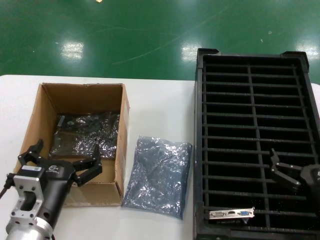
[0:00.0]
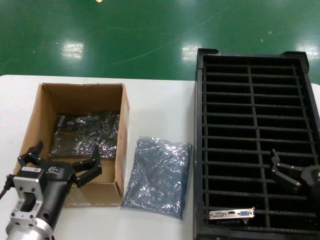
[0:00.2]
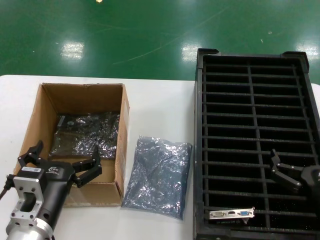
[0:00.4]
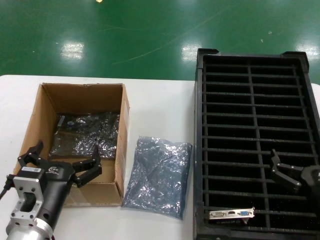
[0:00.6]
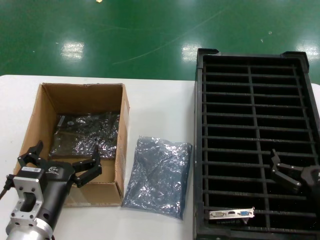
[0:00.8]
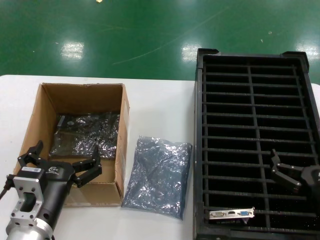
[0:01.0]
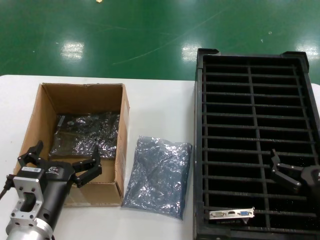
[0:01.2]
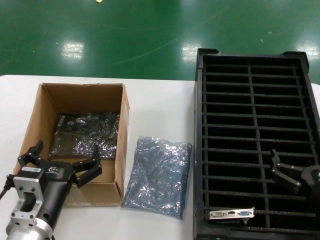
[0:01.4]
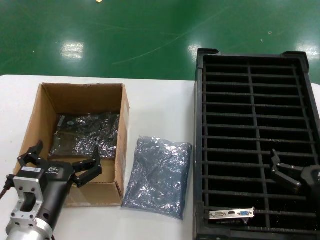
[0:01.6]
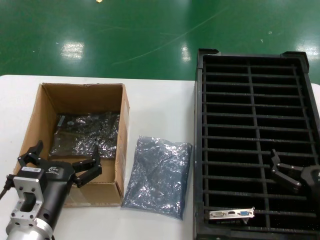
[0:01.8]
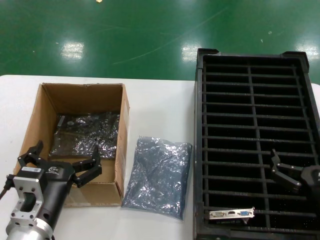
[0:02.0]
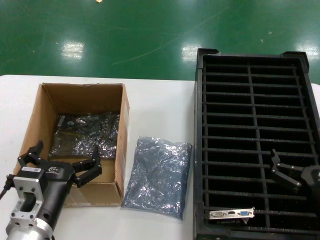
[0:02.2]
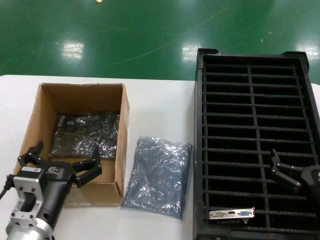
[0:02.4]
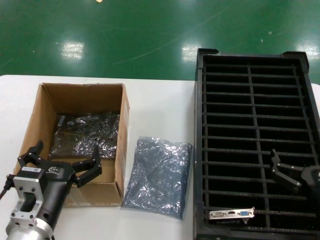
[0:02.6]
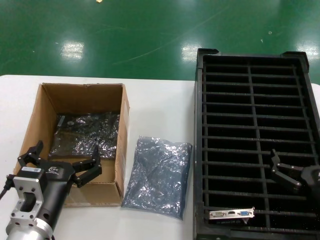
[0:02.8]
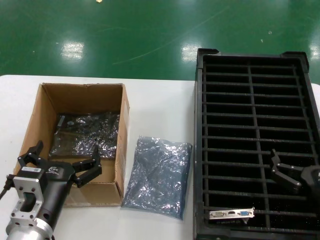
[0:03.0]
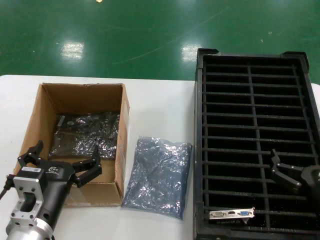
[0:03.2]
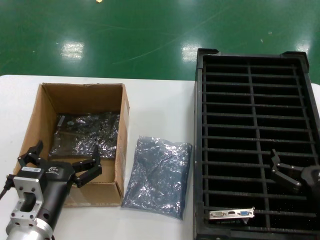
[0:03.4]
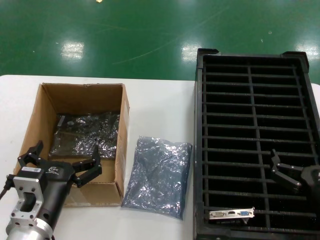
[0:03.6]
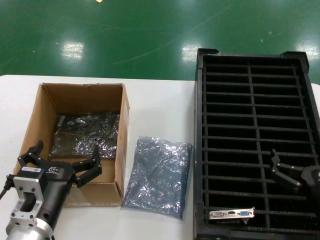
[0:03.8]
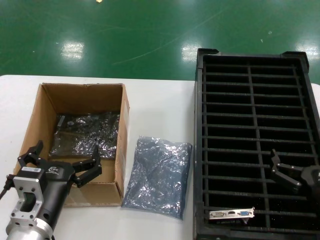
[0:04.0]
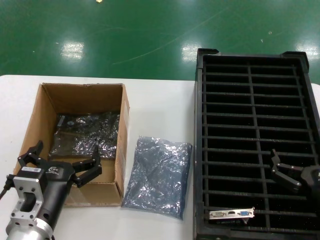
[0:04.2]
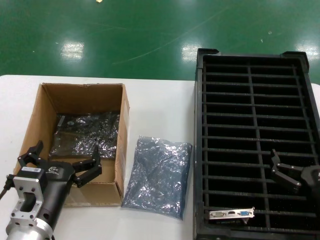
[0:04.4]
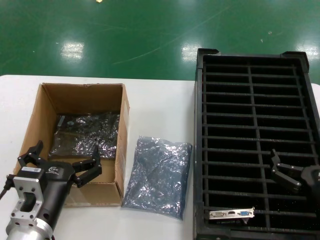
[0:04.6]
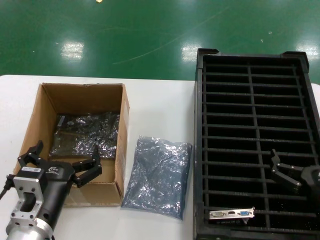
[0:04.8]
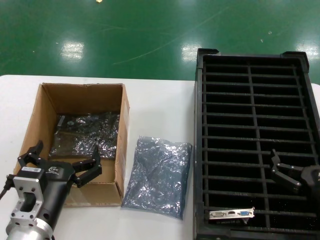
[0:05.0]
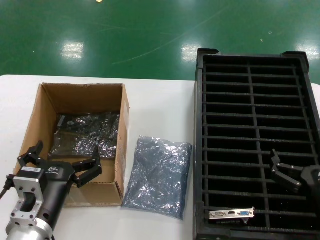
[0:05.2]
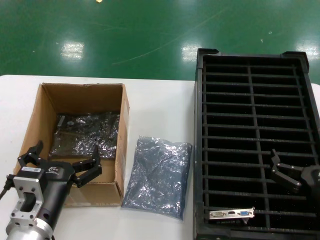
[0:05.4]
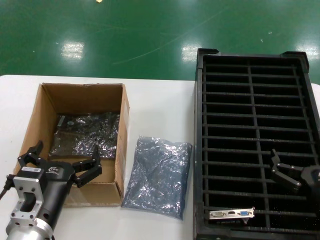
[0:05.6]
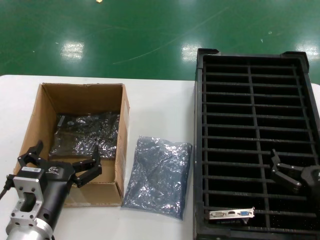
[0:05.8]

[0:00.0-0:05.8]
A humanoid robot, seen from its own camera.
Task of the whole recording: take out graphics card from box remove packaging put into black container.
0.0 to 5.8 s: Both hands stay put.

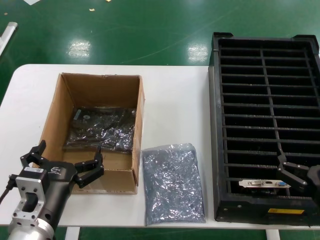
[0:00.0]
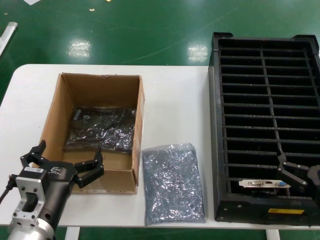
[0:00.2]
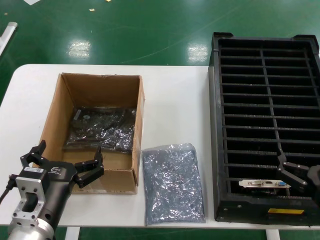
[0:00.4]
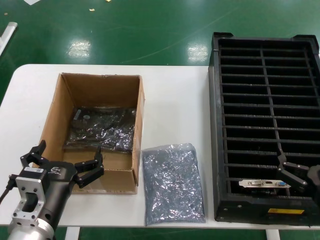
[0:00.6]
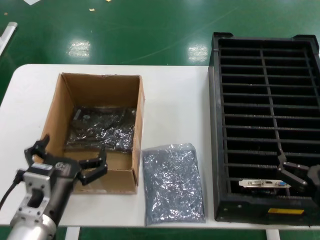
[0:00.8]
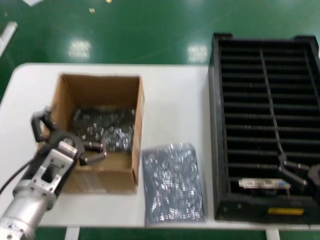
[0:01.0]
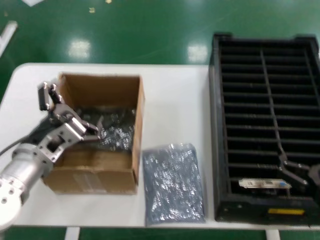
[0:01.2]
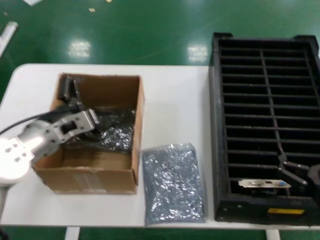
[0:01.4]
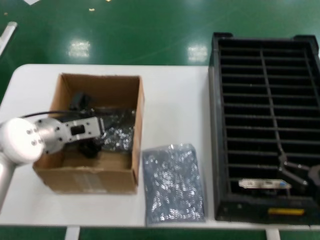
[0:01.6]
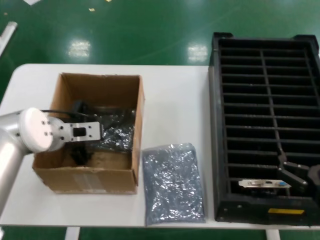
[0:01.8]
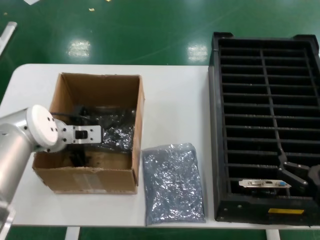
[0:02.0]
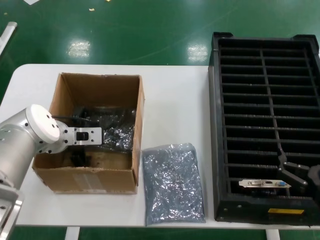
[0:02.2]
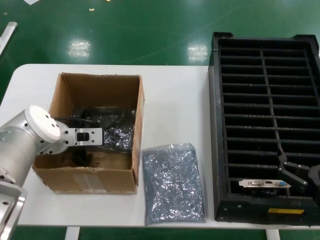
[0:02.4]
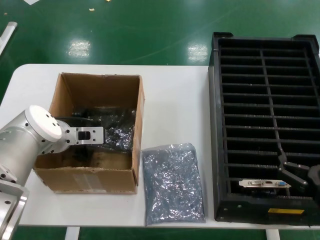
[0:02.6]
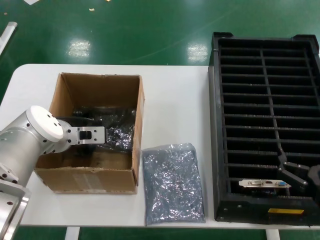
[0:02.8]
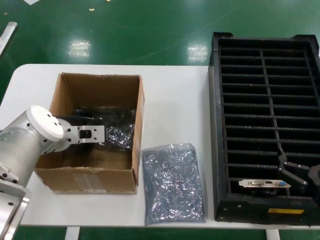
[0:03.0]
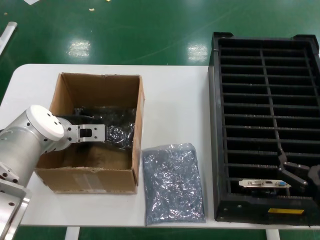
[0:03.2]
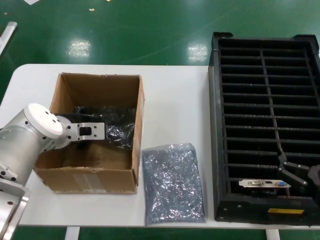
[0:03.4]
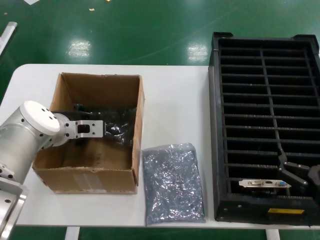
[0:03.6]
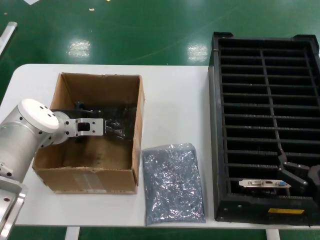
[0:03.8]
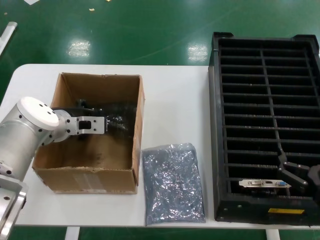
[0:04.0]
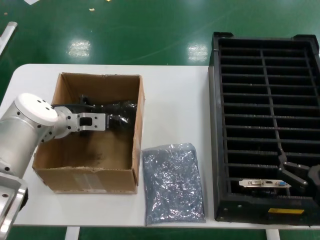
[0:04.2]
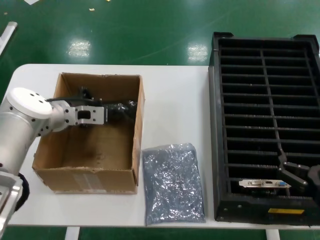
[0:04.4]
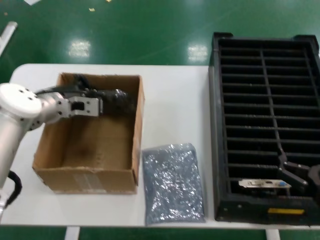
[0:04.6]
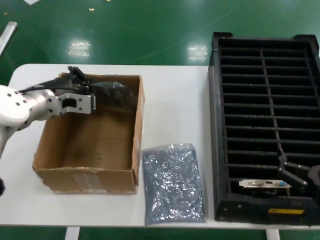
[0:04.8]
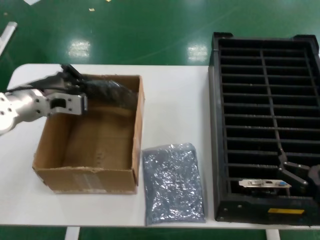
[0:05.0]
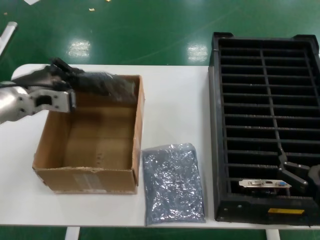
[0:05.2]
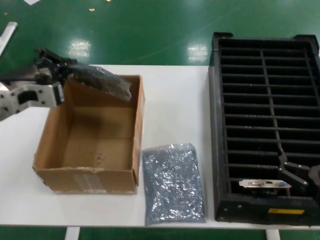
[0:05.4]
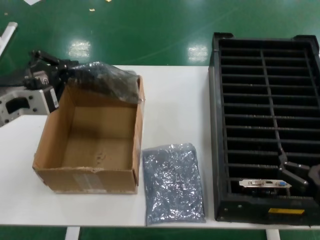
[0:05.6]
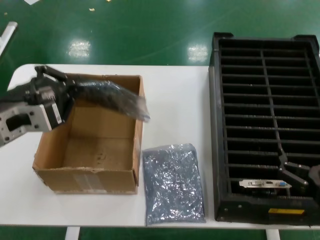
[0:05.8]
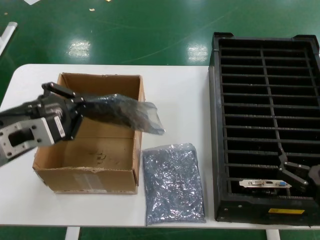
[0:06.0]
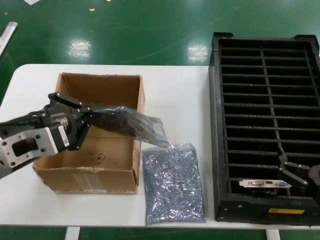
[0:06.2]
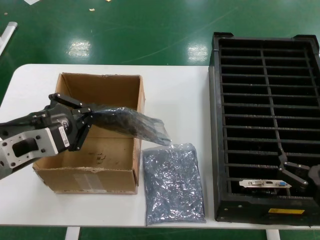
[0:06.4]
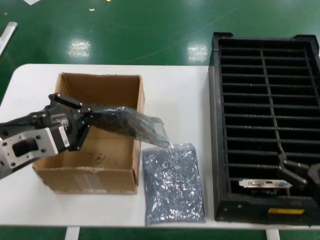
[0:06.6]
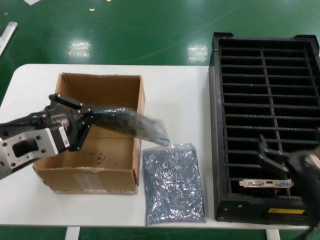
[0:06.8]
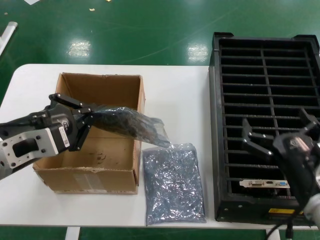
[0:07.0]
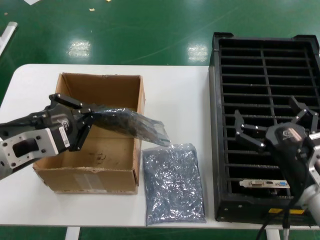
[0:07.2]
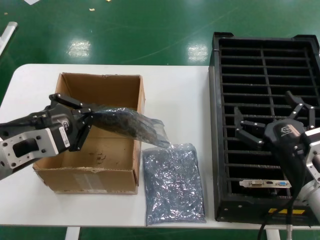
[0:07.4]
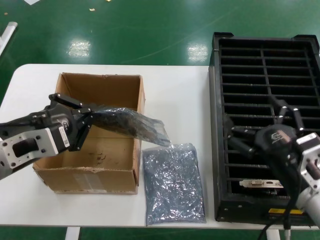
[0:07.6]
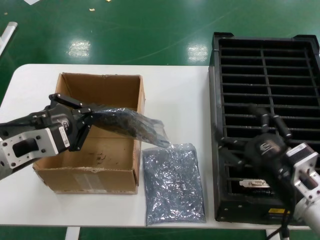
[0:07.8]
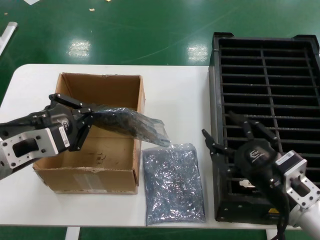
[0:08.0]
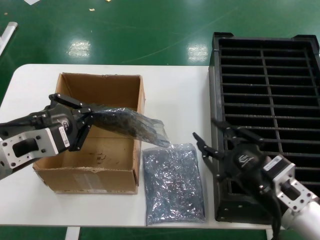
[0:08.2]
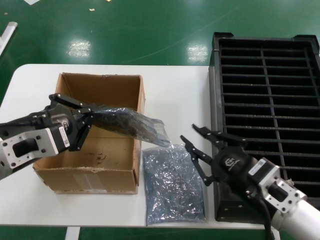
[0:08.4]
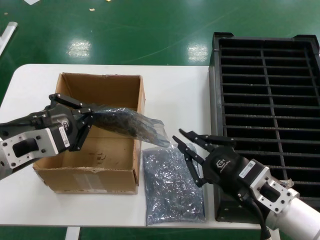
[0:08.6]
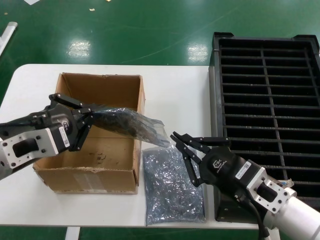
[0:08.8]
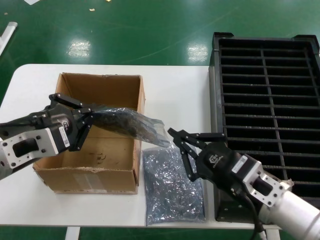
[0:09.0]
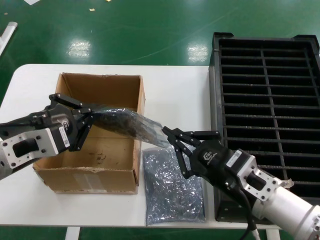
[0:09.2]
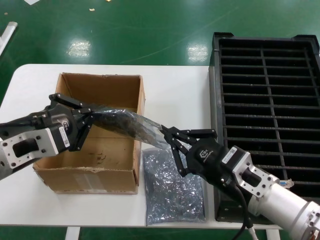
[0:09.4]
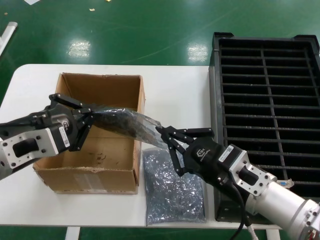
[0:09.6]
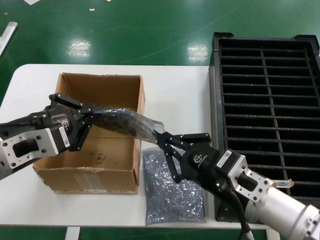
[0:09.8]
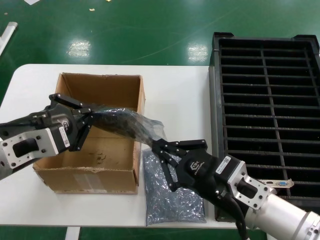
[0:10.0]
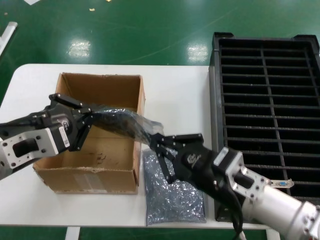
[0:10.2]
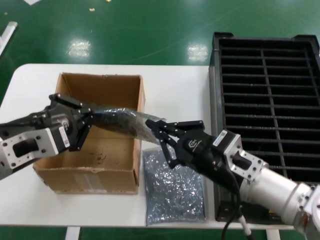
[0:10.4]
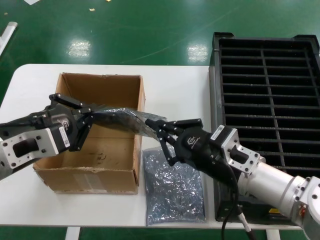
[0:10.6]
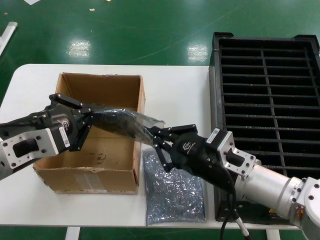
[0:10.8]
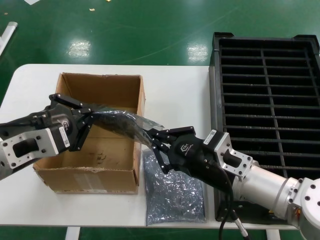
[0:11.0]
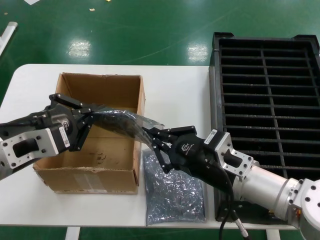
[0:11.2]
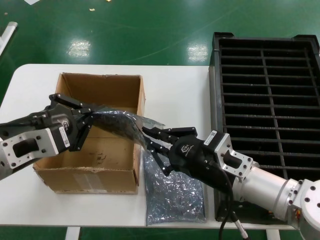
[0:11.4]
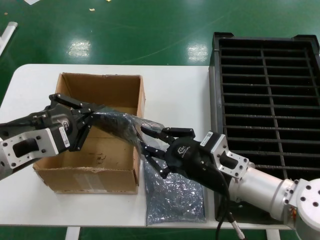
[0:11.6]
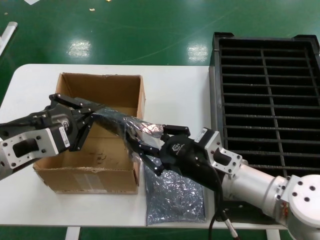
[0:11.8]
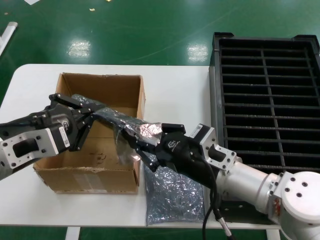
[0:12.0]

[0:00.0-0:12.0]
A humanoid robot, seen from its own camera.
Task of the whole recording: take out graphics card from box remove packaging put into black container.
Step, 0.0 to 3.4 s: Grasp the bag.
Step, 3.8 to 6.4 s: Lift the bag.
0.0 to 1.6 s: The left hand goes some 20 cm forward and upward.
1.6 to 3.0 s: The left hand goes about 5 cm forward.
3.0 to 4.4 s: The hands move only a little.
4.4 to 6.0 s: The left hand travels backward by approximately 20 cm.
6.0 to 7.6 s: The right hand shifts about 5 cm forward.
9.0 to 10.4 s: The hands move only a little.
10.4 to 12.0 s: The hands make only small movements.

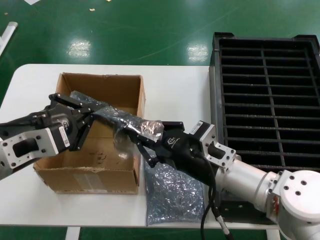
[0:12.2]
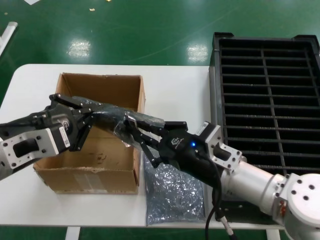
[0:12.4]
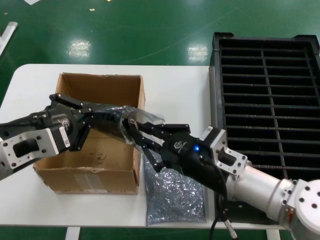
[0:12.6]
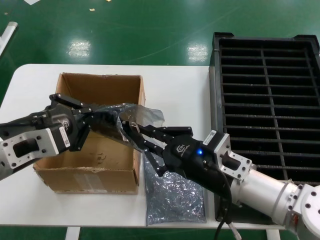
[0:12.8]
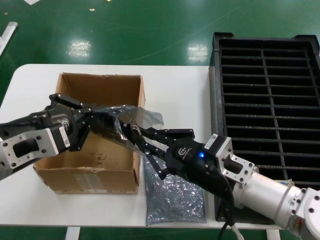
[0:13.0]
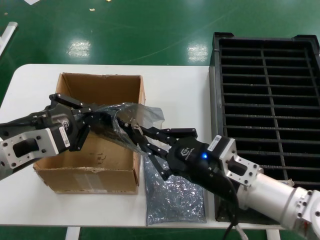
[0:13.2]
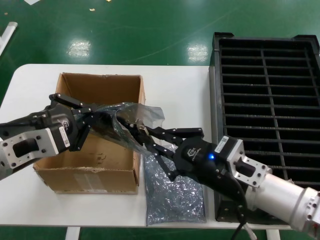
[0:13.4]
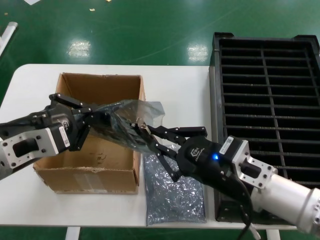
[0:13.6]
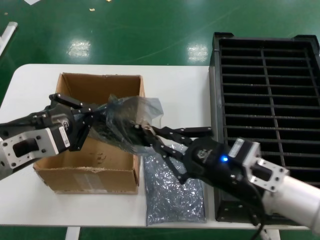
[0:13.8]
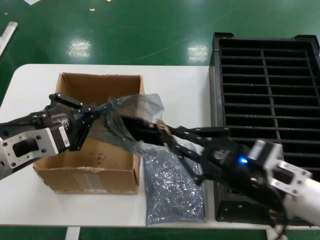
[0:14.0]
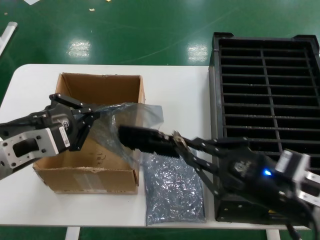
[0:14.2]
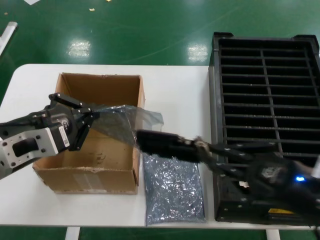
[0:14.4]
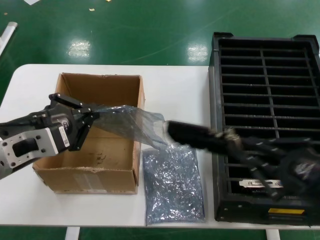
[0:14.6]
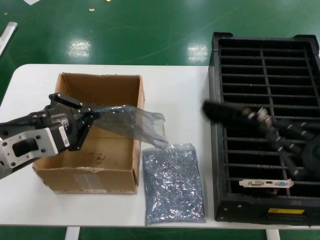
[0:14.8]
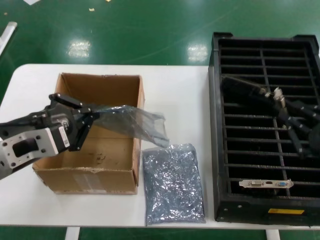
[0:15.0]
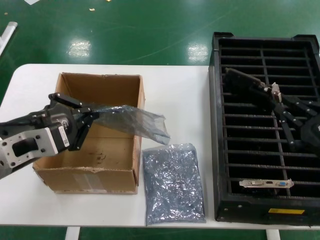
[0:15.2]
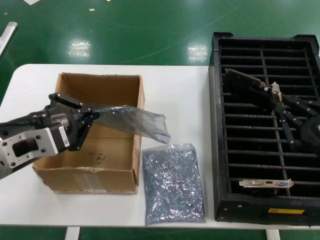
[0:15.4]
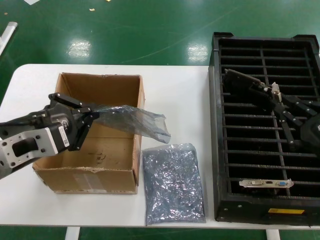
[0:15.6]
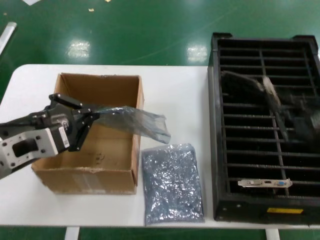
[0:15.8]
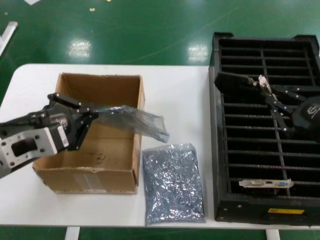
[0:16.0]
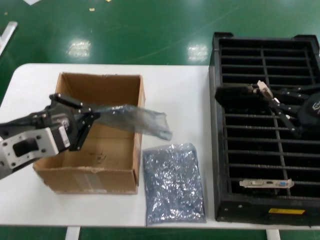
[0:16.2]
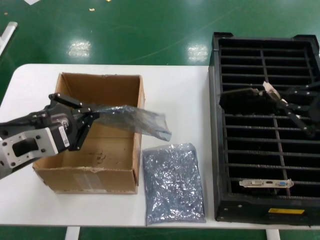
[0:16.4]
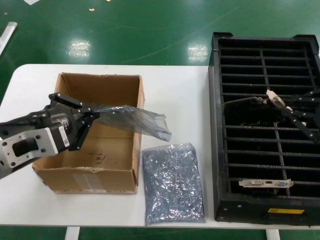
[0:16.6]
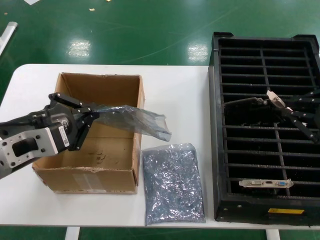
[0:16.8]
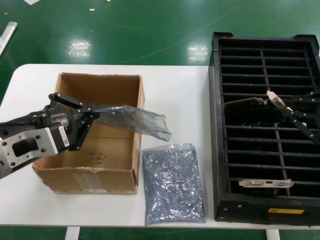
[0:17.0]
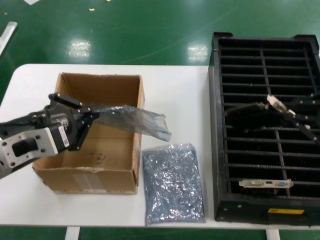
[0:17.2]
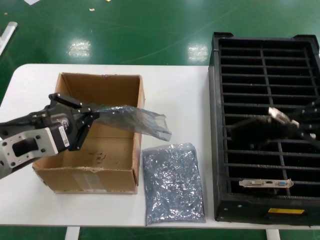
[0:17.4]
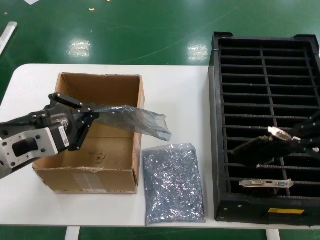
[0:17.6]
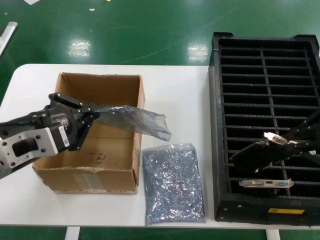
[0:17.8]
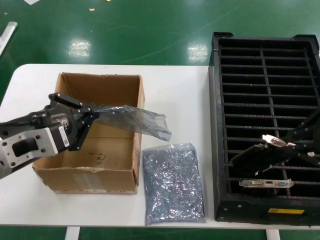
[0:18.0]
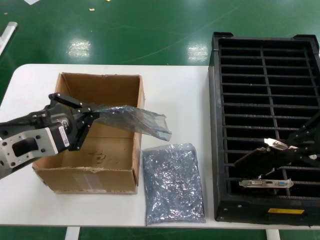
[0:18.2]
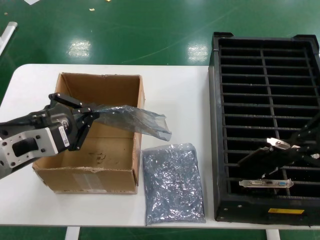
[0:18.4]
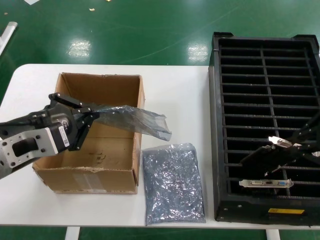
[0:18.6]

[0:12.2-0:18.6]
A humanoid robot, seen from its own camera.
Task of the whole recording: take out graphics card from box remove packaging put into black container.
Step, 12.2 to 14.6 s: Take out the hard disk of the bag.
12.2 to 13.8 s: The right hand travels backward and to the right by some 10 cm.
13.8 to 15.4 s: The right hand shifts roughly 15 cm to the right.
15.4 to 17.0 s: The right hand goes roughly 15 cm upward.
17.0 to 18.6 s: The right hand shifts by some 5 cm.
